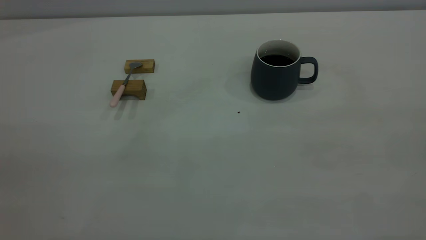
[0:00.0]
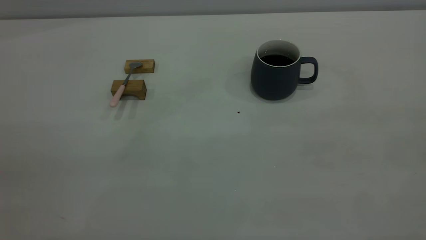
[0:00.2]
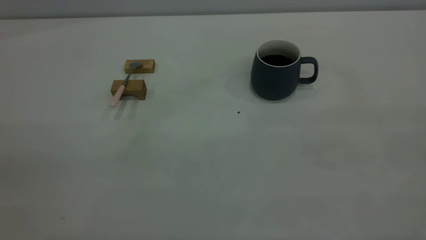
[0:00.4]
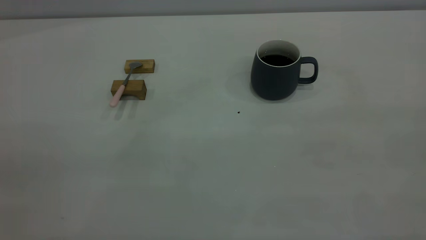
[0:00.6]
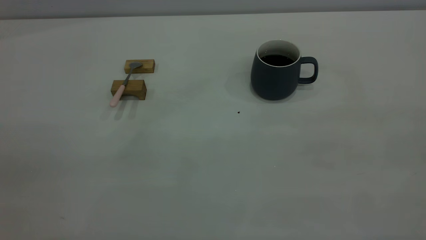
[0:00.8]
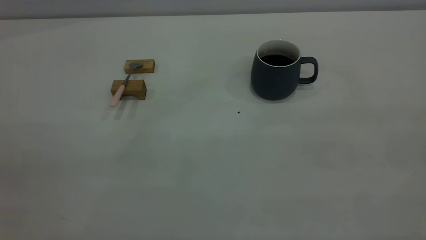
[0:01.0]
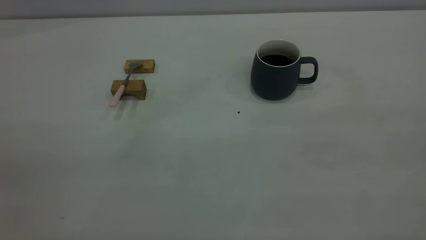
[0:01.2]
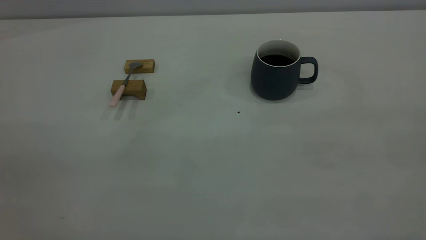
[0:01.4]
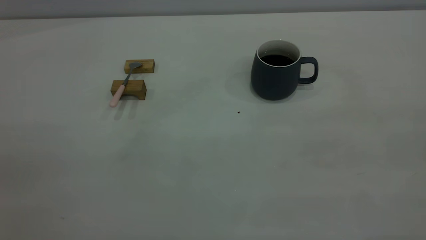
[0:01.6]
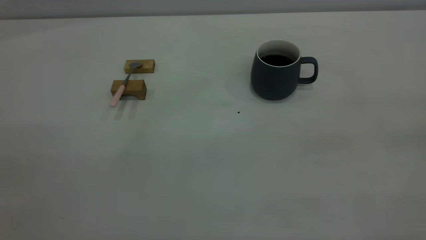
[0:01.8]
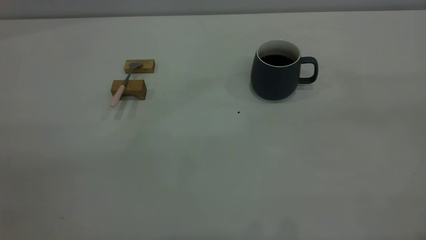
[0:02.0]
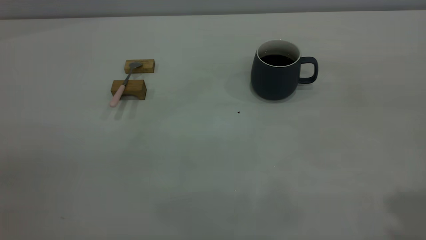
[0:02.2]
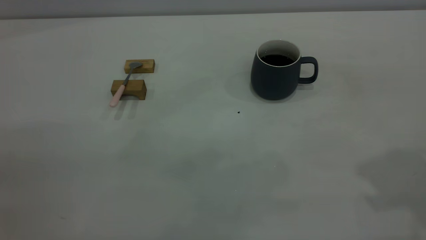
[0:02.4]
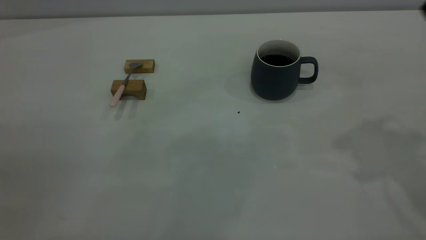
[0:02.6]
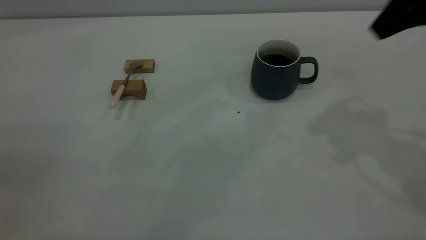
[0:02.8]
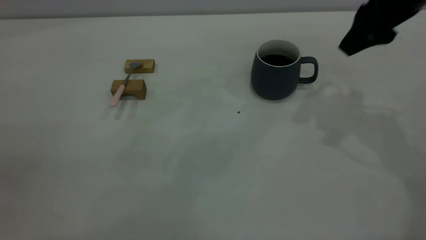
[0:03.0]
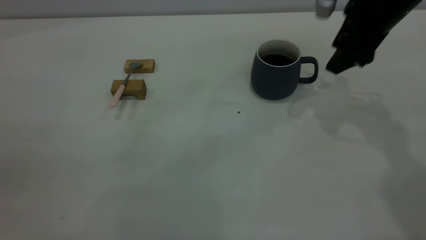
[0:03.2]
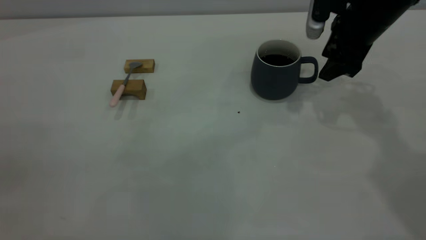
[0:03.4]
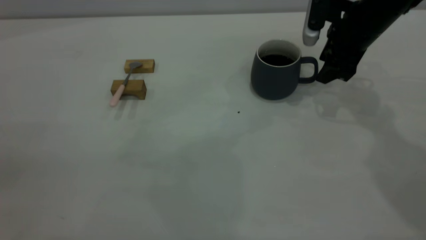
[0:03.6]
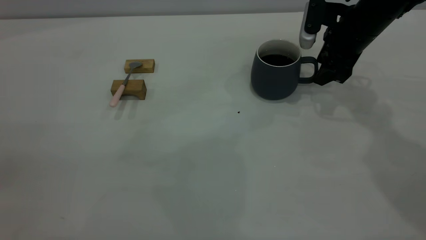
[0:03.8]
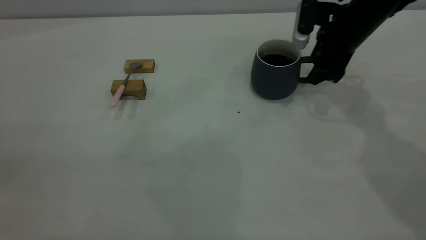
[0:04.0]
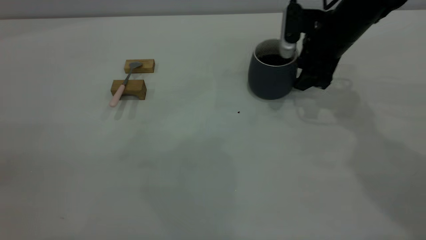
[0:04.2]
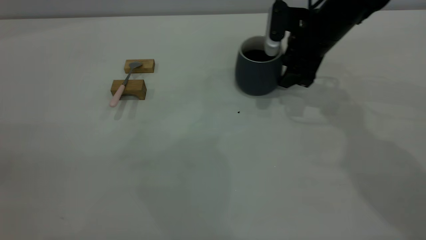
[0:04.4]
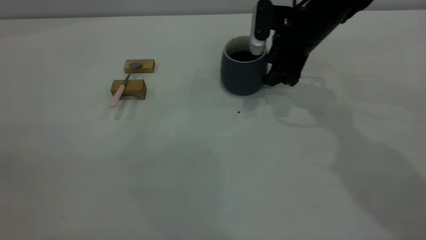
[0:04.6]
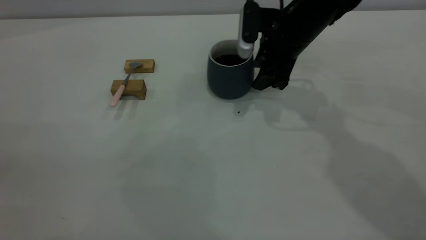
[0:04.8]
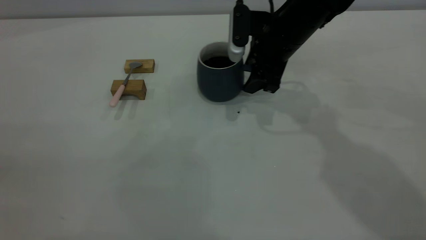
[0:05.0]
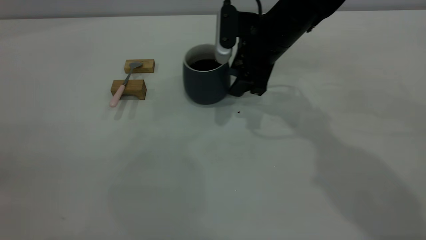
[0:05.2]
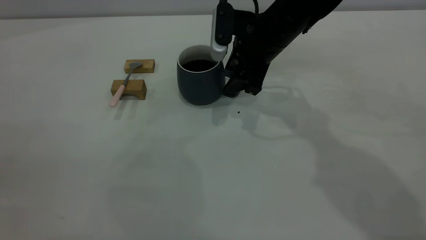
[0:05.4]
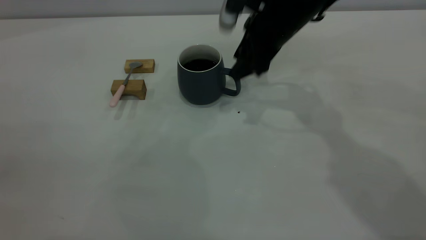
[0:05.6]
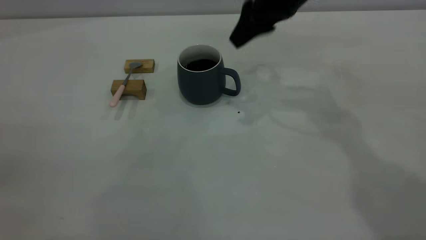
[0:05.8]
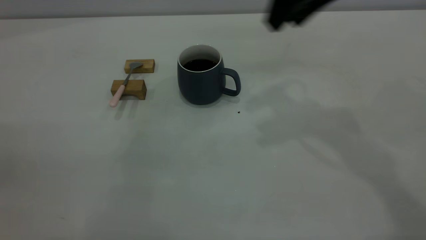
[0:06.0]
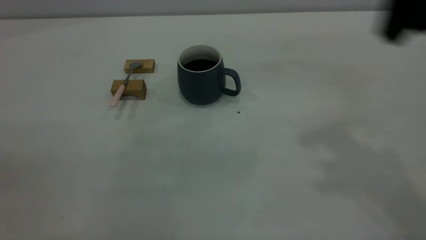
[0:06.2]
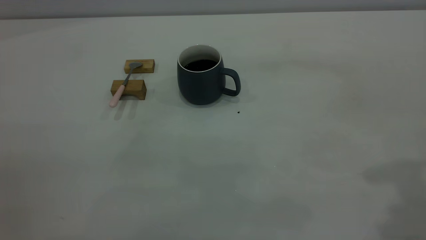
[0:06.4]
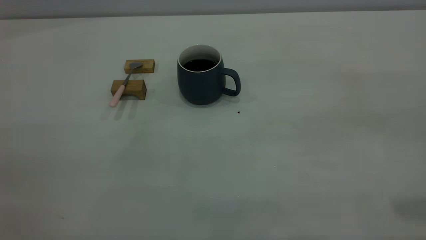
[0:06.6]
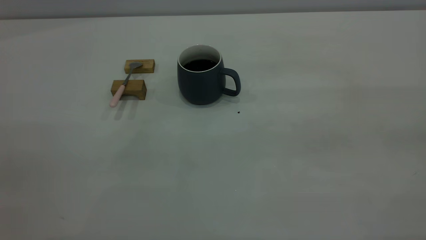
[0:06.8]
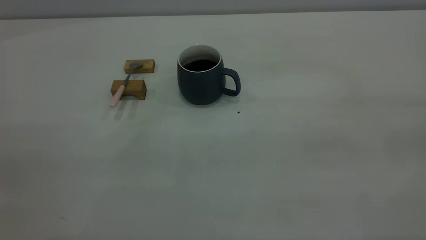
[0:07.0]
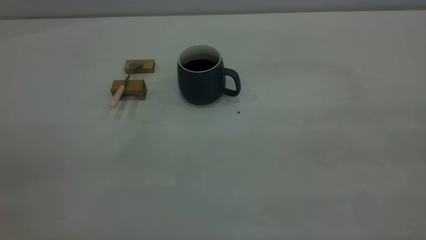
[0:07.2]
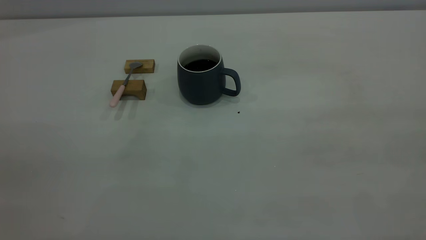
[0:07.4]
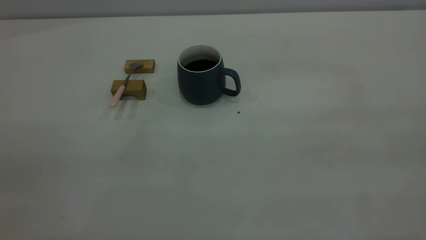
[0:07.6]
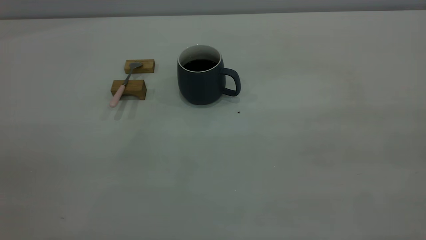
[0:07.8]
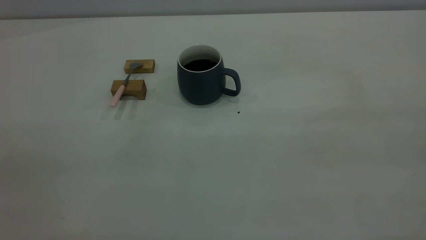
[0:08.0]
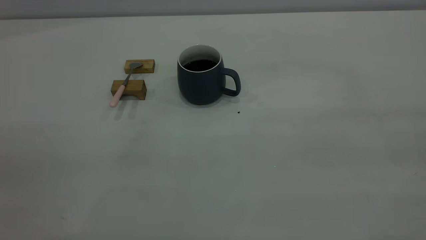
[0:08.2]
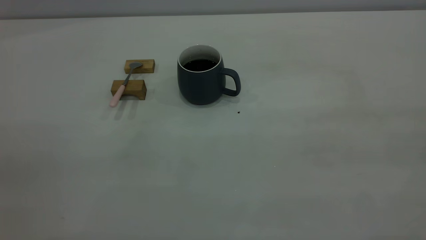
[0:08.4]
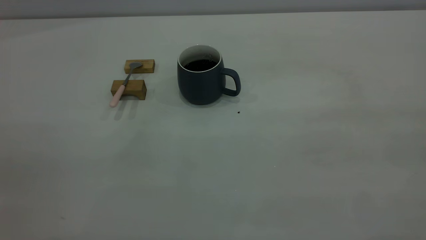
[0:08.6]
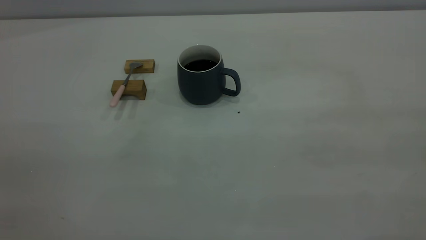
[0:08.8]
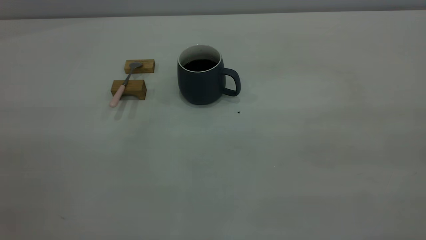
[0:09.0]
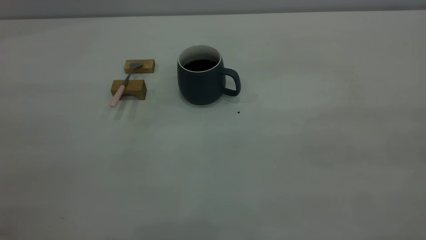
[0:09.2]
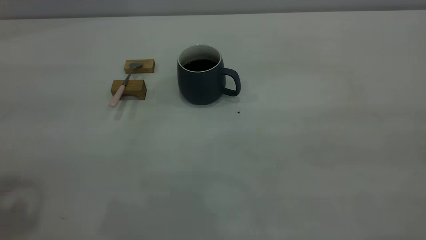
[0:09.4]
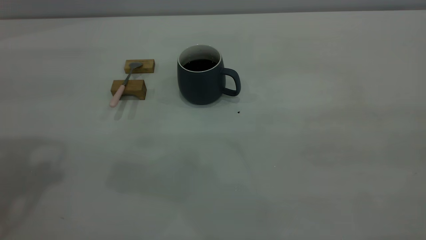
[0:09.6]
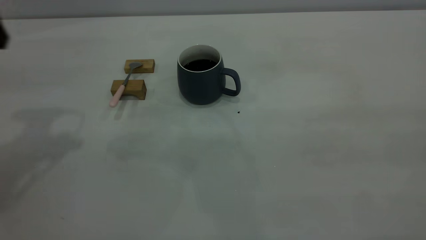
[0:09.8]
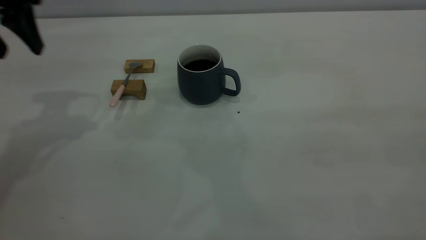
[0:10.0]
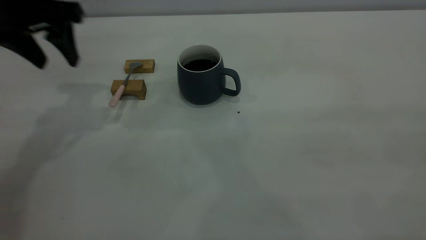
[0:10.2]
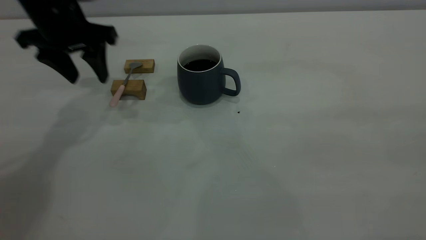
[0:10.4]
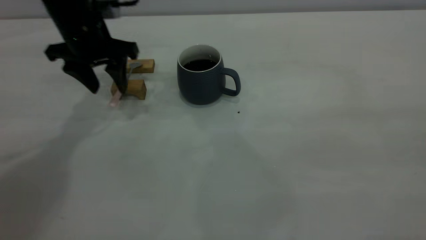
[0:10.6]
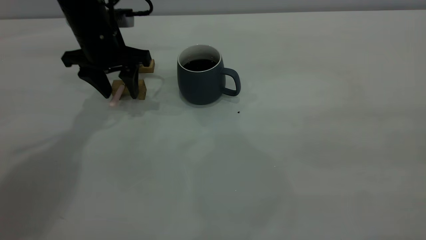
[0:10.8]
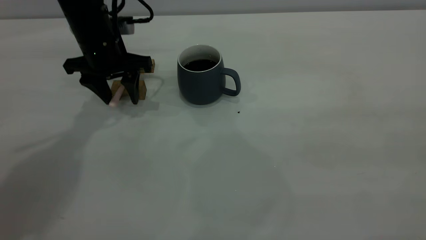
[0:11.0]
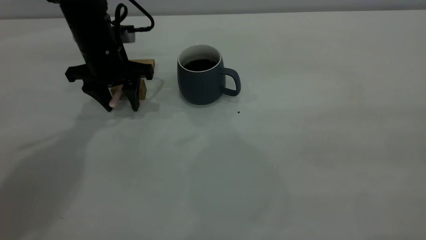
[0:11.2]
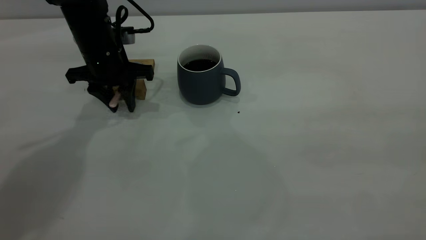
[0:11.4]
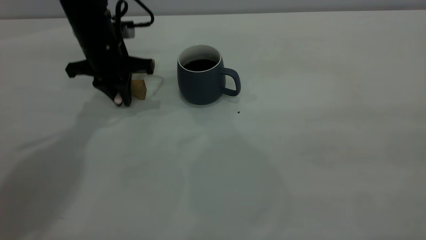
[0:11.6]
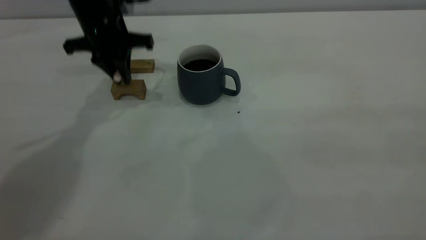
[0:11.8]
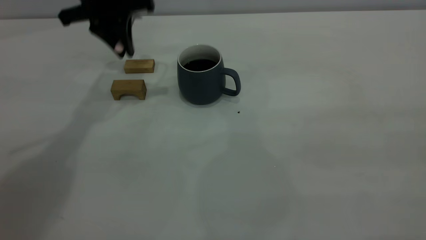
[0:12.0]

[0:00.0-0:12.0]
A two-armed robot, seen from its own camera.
Step, 0:00.0 to 0:05.6: Move the cup with coffee to the center of view.
Step, 0:06.0 to 0:11.8: Pick up the spoon.
0:00.0 to 0:01.6: Both grippers stay about where they are.
0:01.6 to 0:03.0: The right gripper travels forward by about 35 cm, and opens its fingers.
0:03.0 to 0:04.4: The right gripper travels downward, forward and to the left by roughly 15 cm.
0:04.4 to 0:06.0: The right gripper travels upward and backward by about 20 cm.
0:06.0 to 0:07.6: The right gripper is displaced backward and to the right by approximately 35 cm.
0:09.0 to 0:10.4: The left gripper shifts approximately 40 cm forward and downward.
0:10.4 to 0:12.0: The left gripper moves forward, approximately 5 cm, moves roughly 10 cm downward and comes back, and closes its fingers.

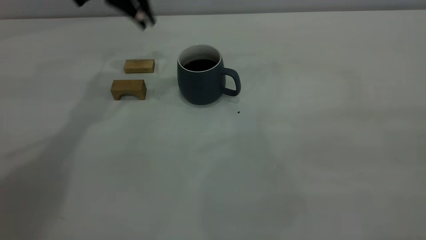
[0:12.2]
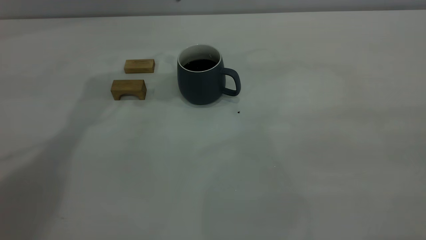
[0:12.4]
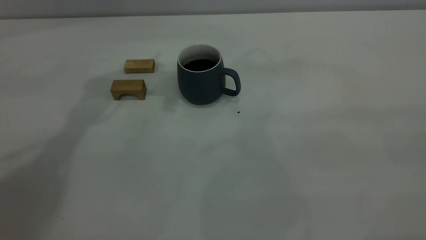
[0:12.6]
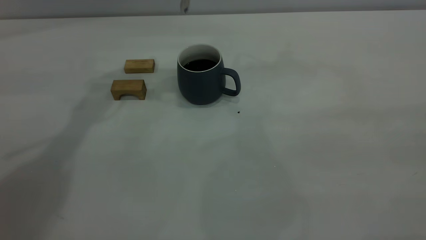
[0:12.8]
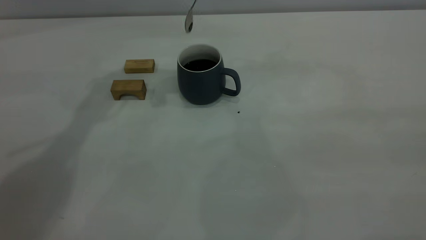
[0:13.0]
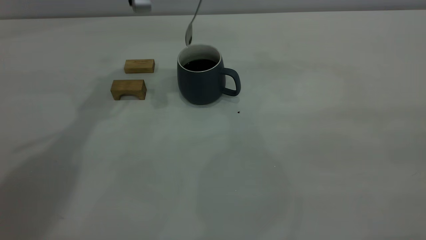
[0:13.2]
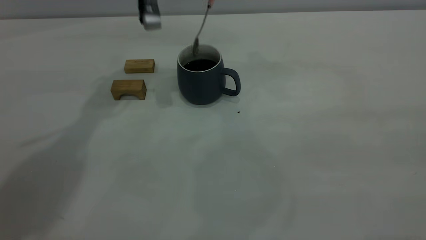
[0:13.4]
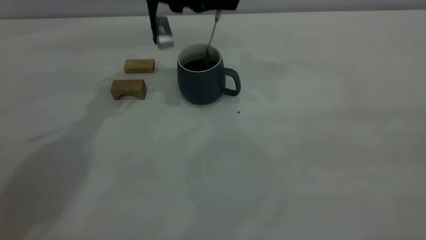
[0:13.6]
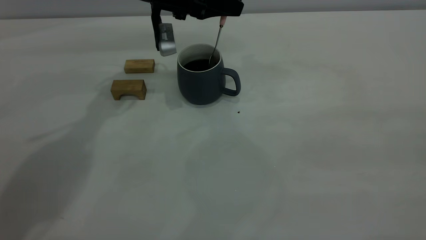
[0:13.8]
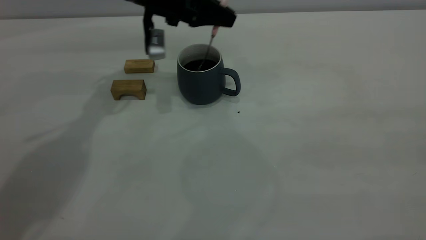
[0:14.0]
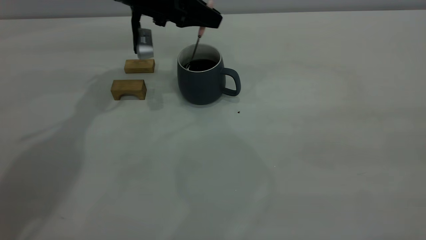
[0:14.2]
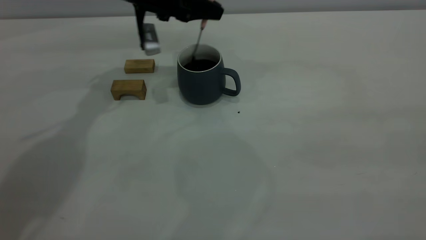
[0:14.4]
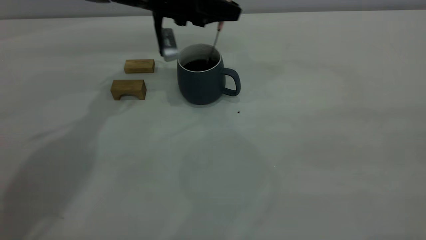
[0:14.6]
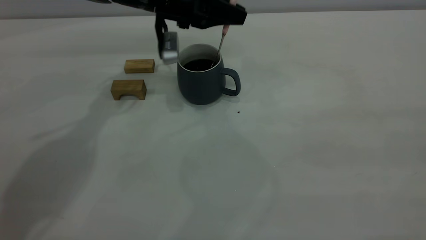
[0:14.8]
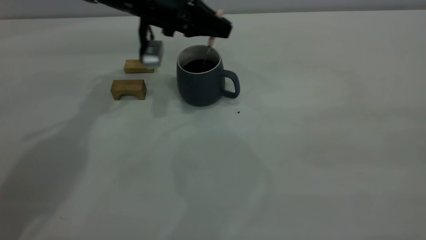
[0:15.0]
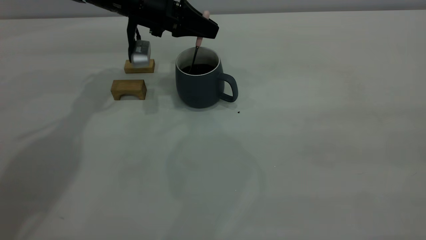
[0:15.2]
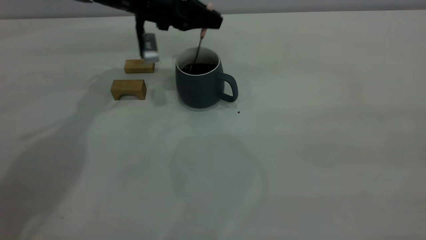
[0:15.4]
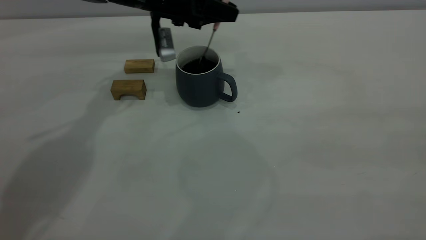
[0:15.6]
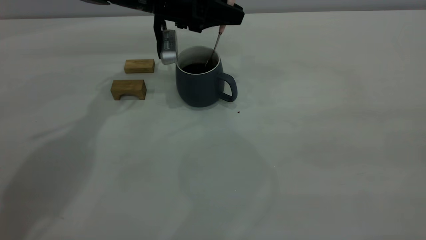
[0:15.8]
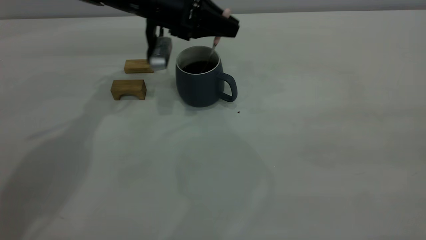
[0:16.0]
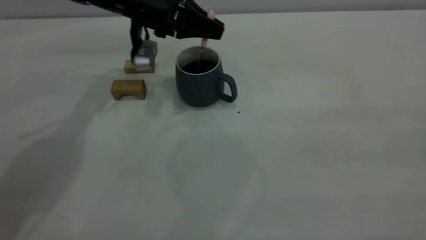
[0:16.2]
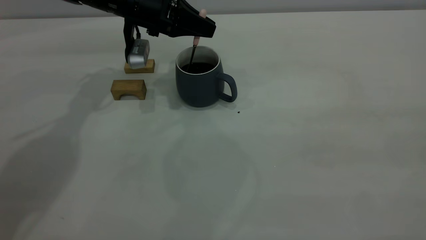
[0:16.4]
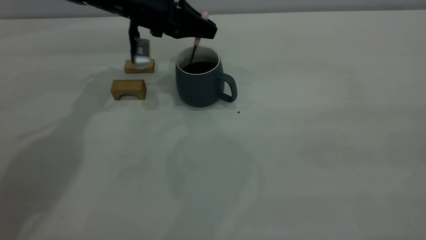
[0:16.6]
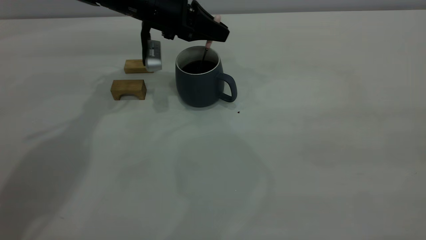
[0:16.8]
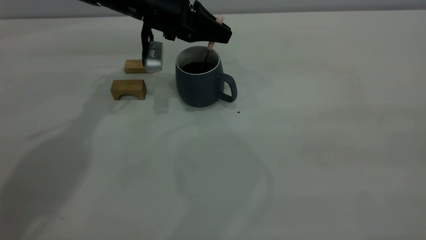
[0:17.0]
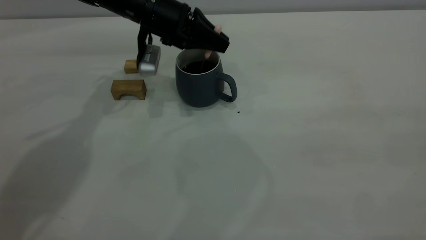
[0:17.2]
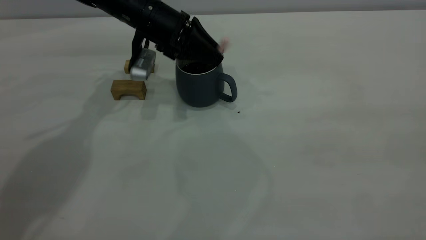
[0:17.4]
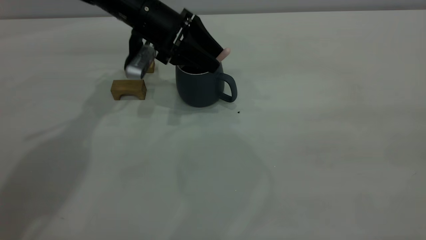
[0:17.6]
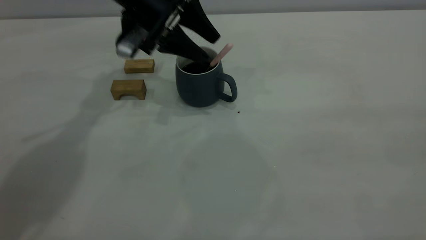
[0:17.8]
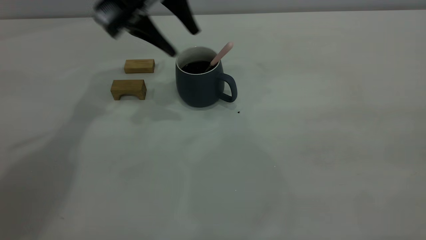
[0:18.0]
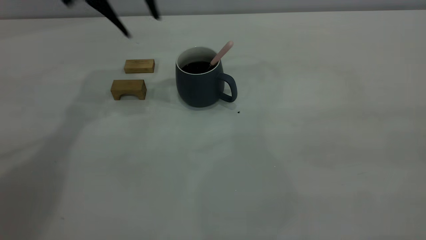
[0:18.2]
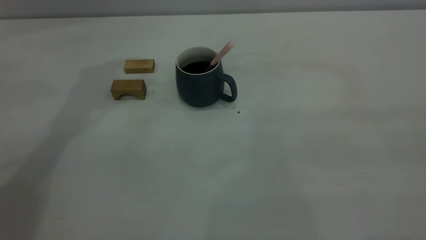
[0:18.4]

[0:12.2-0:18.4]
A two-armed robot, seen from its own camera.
Step, 0:12.2 to 0:18.0: Stir the coffee in the cup.
0:12.2 to 0:13.8: The left gripper moves downward and to the right, some 10 cm.
0:13.8 to 0:16.8: The grippers stay close to where they were, moving slightly.
0:16.8 to 0:18.4: The left gripper shifts approximately 20 cm upward, and opens.
